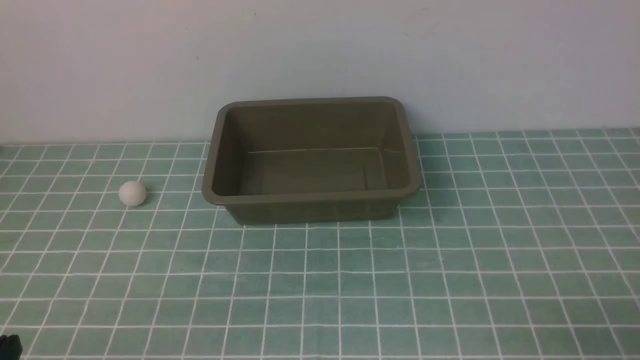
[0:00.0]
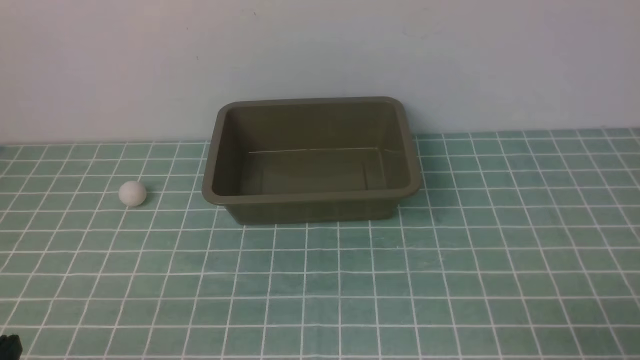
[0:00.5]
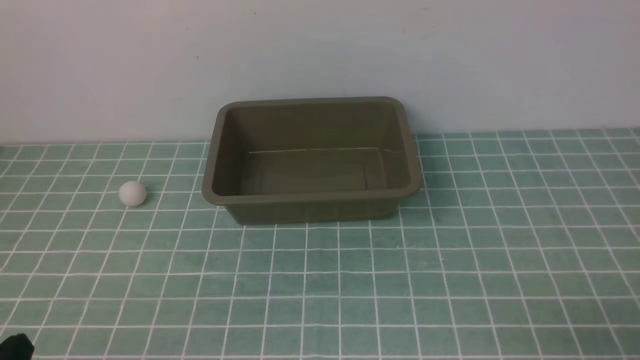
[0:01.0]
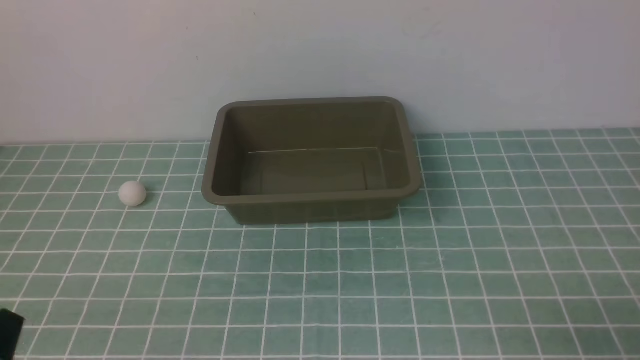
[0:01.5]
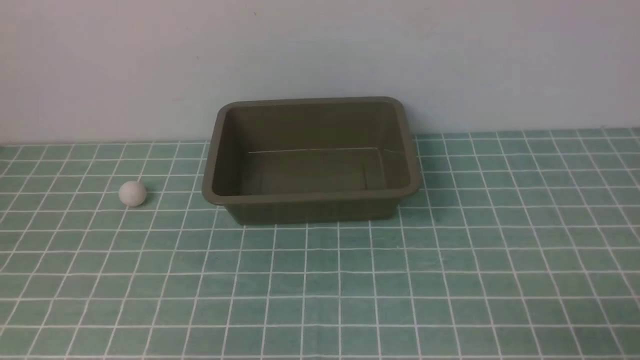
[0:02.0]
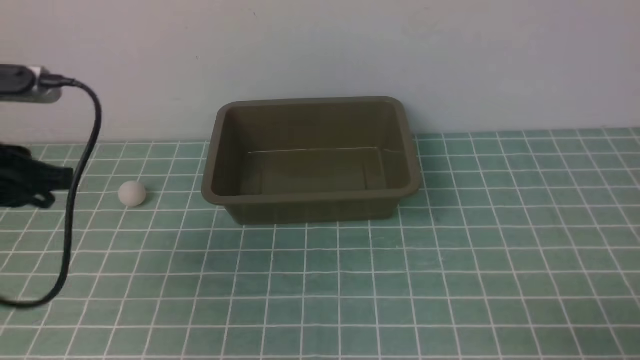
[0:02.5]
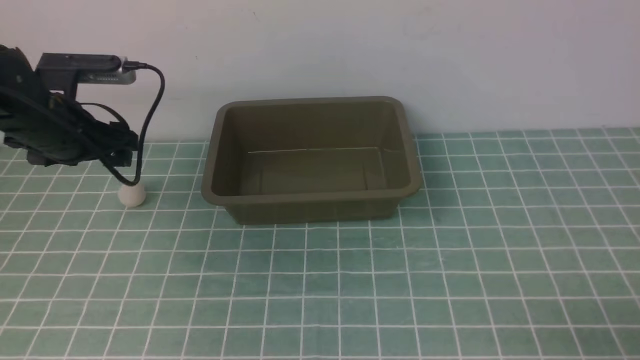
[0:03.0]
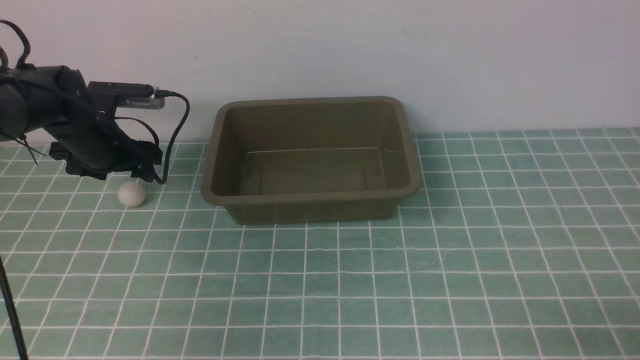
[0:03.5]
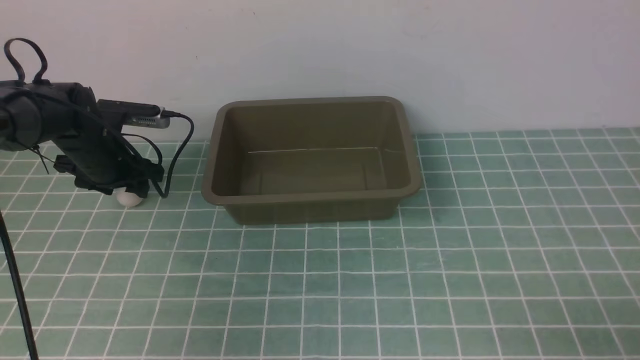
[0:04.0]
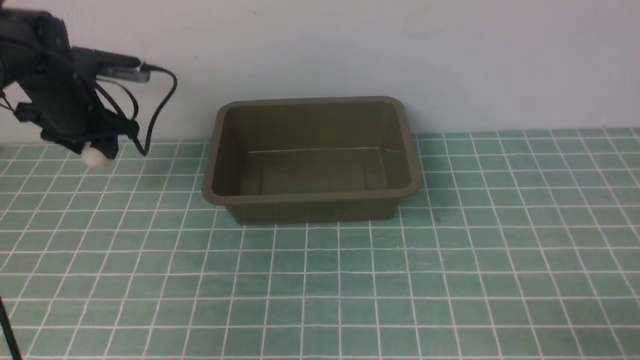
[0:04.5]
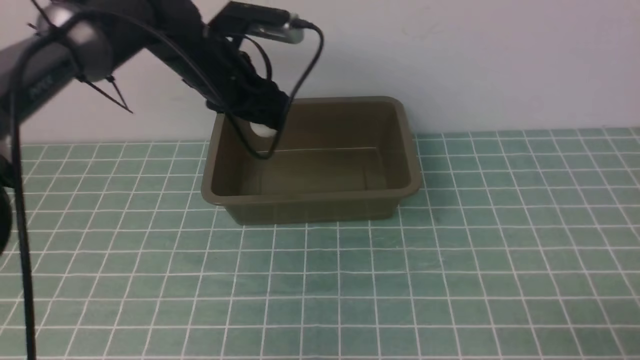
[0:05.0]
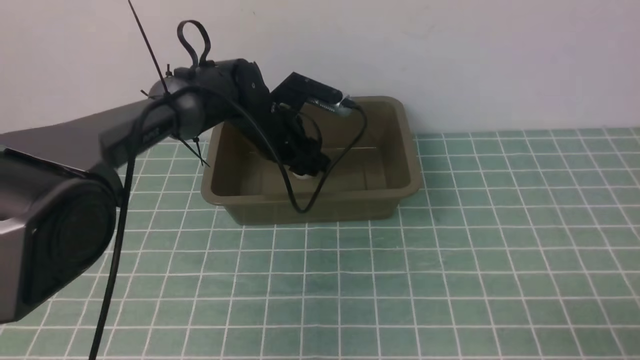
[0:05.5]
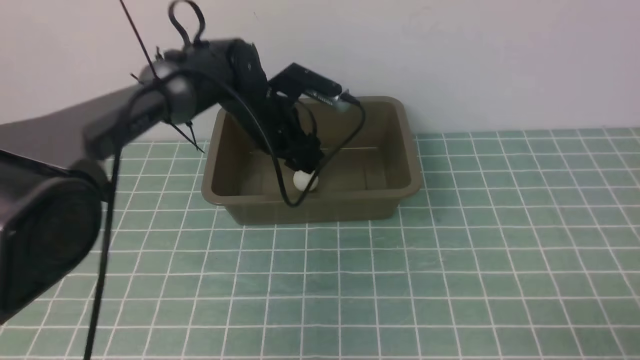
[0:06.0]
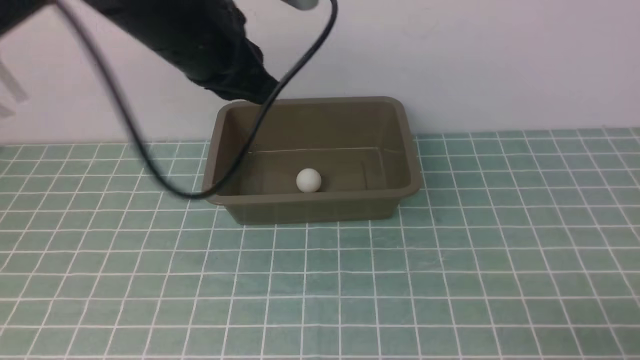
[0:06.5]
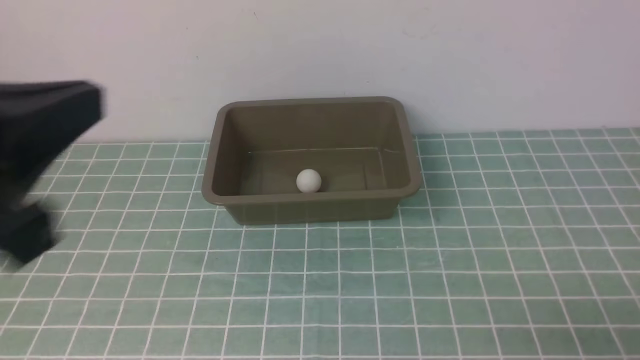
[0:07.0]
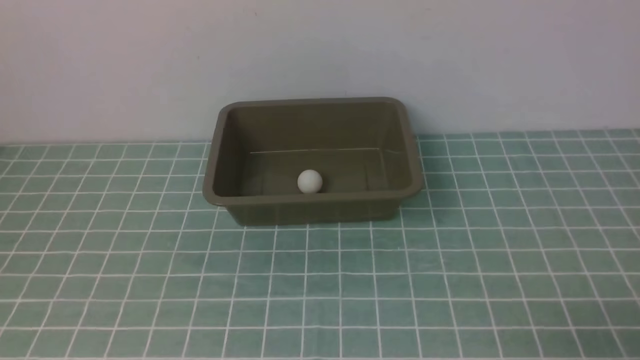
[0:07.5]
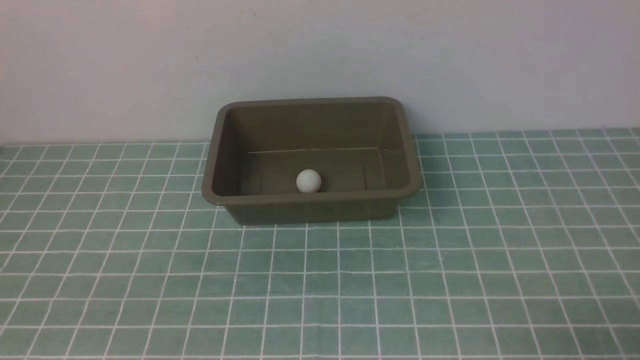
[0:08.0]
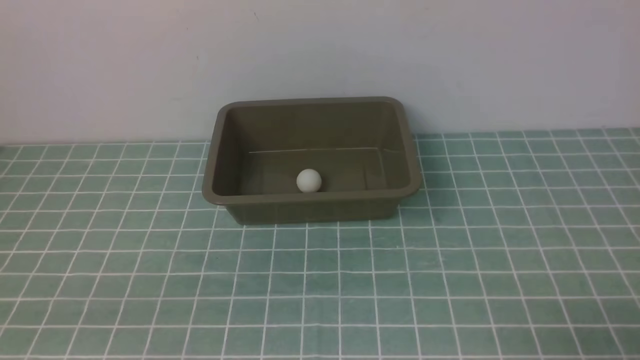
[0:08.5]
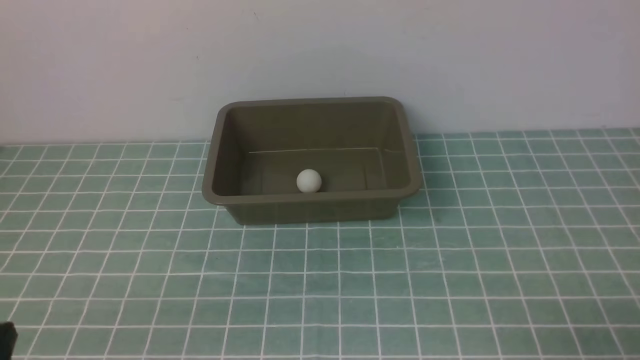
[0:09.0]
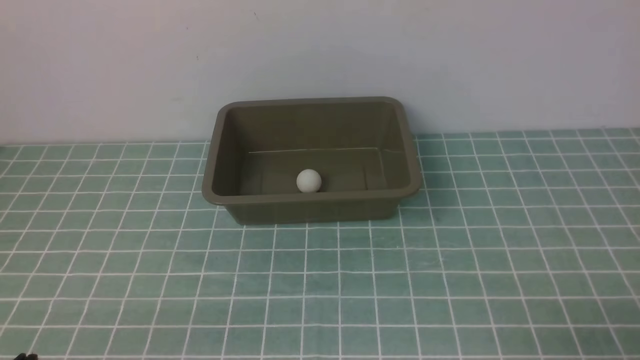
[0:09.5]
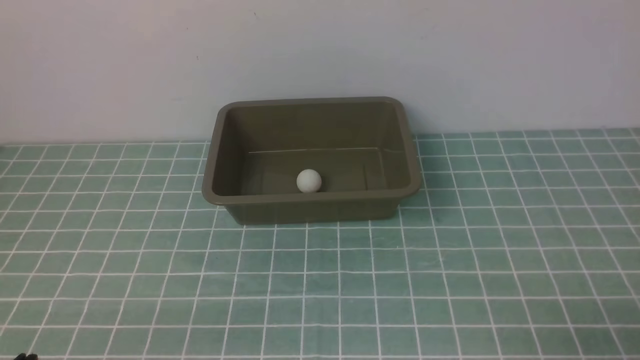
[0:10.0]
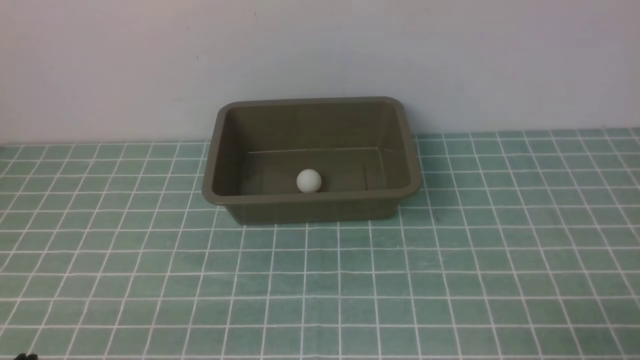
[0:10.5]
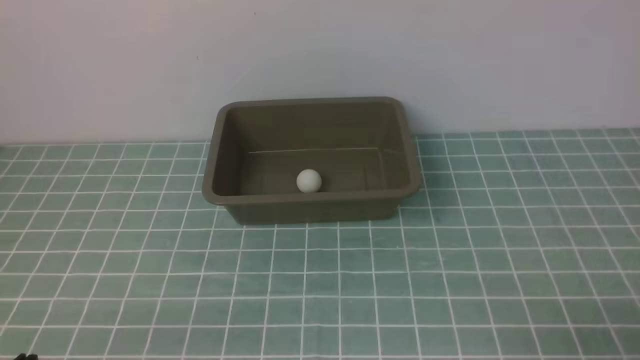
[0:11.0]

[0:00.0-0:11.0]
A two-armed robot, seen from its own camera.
Step, 0:00.0 to 0:04.0: use the left arm to clamp the table tennis ball closest to it.
Step, 0:04.5 to 0:06.0: use the left arm to put the table tennis ball into the box.
0:02.0 to 0:03.5: The left gripper heads forward and downward, covering some 40 cm, and opens.
0:03.5 to 0:05.5: The left gripper moves to the right, about 20 cm.
0:05.5 to 0:07.5: The left gripper heads backward and to the left, covering about 50 cm, and closes up.
0:09.0 to 0:11.0: Both grippers stay about where they are.
